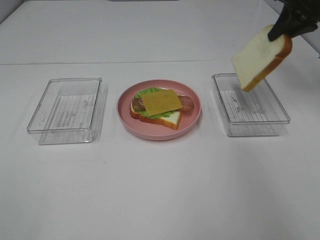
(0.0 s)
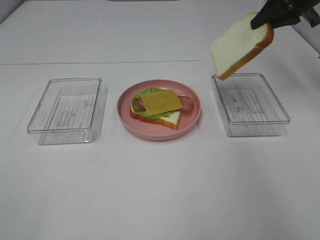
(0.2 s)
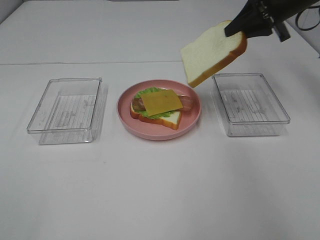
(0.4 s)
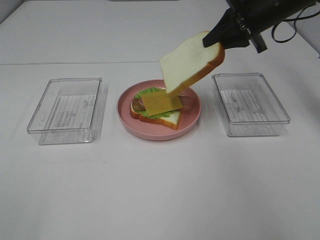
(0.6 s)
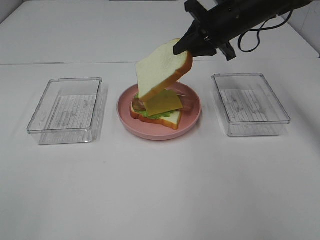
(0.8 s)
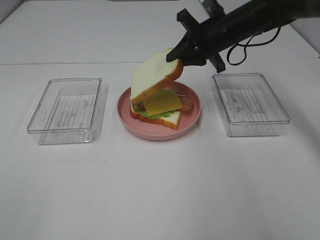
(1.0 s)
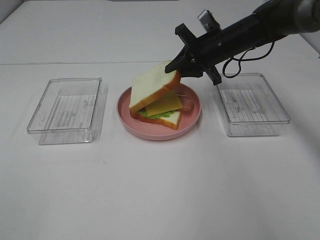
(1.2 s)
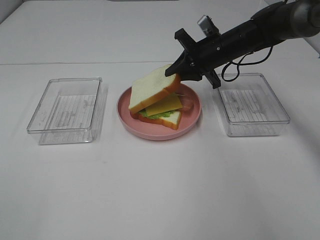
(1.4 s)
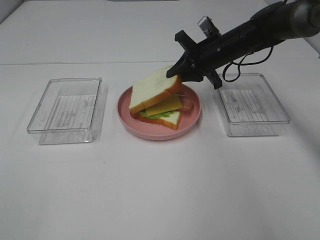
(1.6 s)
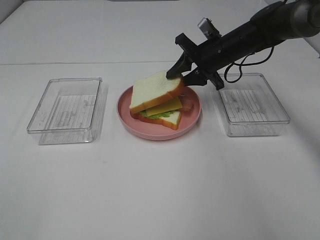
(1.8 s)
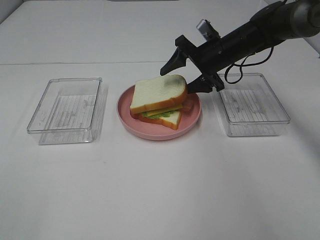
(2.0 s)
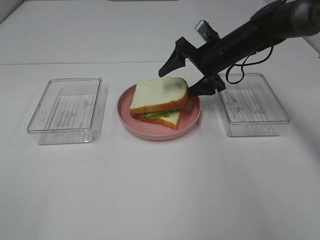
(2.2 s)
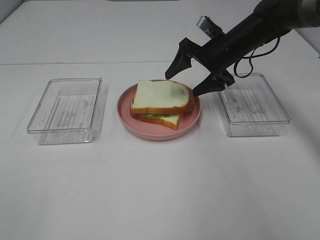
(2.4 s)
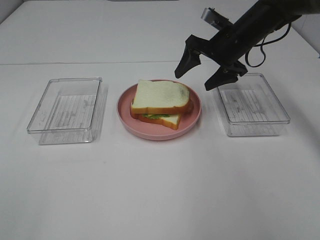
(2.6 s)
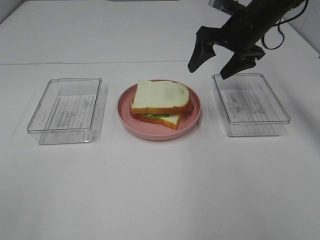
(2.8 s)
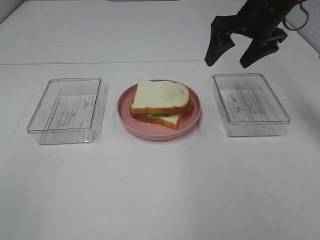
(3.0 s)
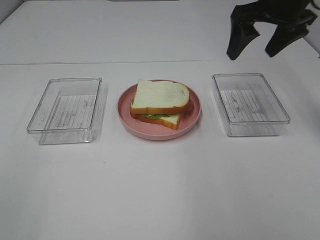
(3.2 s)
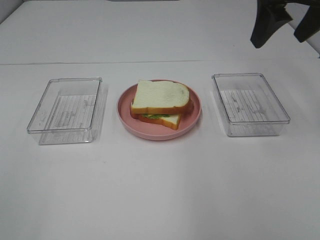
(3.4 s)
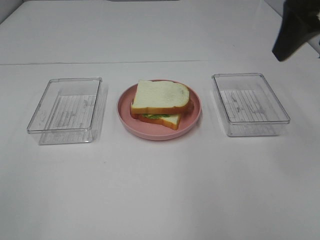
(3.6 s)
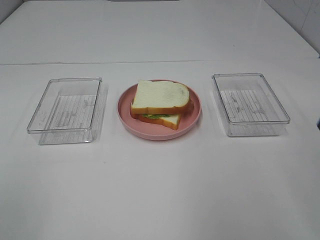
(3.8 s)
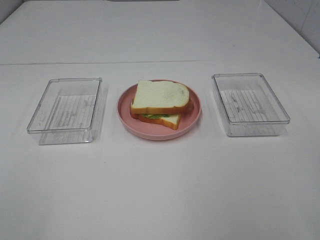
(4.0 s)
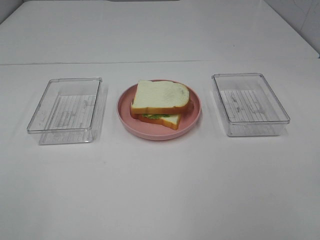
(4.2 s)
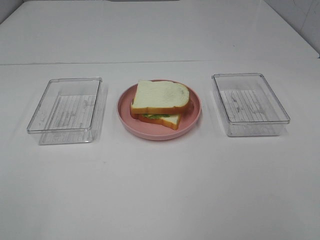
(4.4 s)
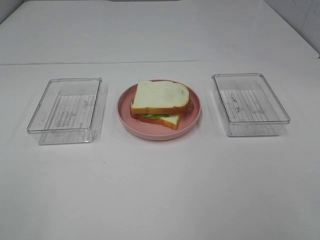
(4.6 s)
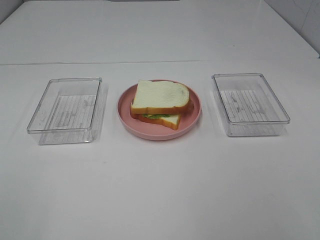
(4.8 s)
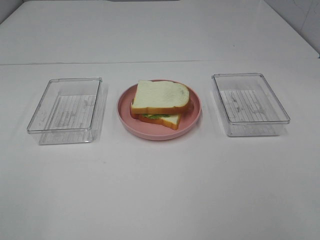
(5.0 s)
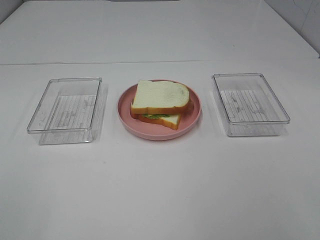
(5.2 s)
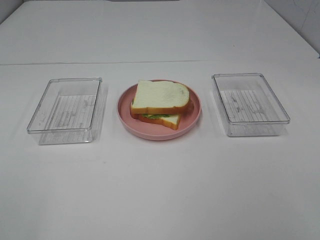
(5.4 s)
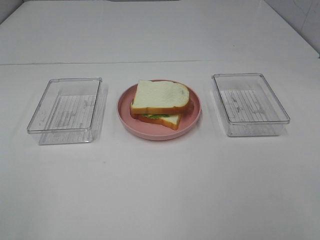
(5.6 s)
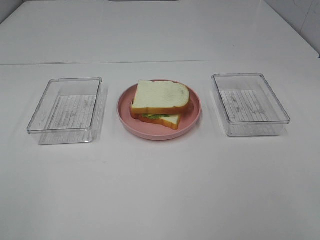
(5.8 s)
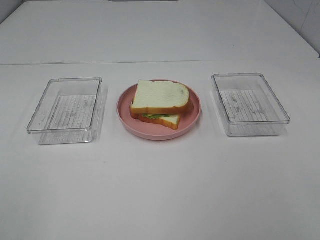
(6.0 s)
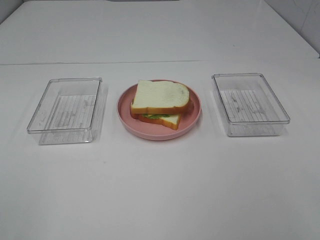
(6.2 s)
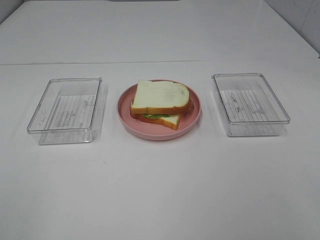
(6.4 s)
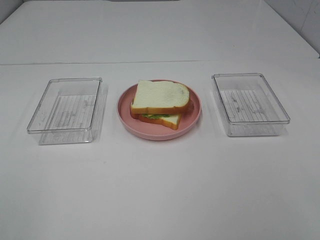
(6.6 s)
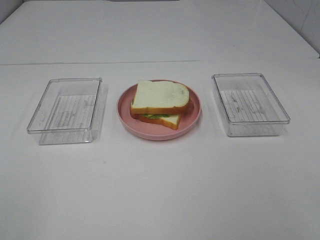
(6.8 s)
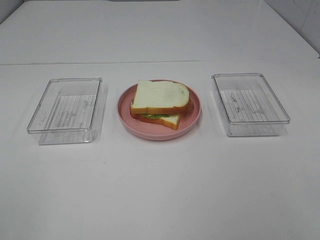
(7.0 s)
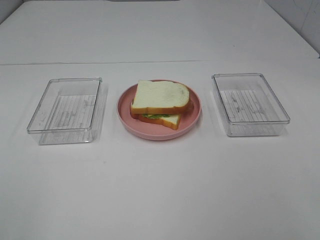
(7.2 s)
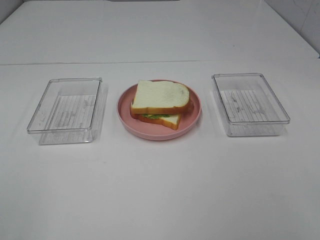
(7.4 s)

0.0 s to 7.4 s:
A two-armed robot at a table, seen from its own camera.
Task of the whole recording: Make sandwiches.
Step, 0.0 to 2.4 s: Right hand:place the bread slice on the cheese slice.
0.0 to 1.4 s: The right gripper travels to the left and downward by approximately 20 cm.
1.4 to 3.0 s: The right gripper travels upward and backward by about 15 cm, and opens its fingers.
3.0 to 4.4 s: The right gripper is displaced backward by some 40 cm.
6.0 to 7.4 s: The two grippers keep their place.

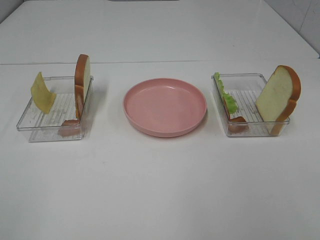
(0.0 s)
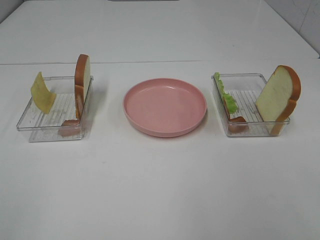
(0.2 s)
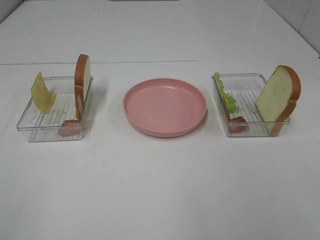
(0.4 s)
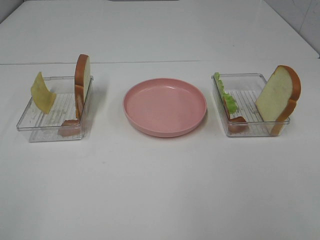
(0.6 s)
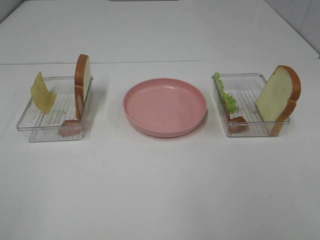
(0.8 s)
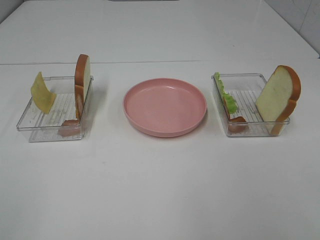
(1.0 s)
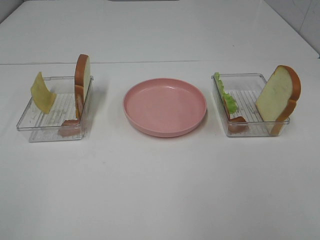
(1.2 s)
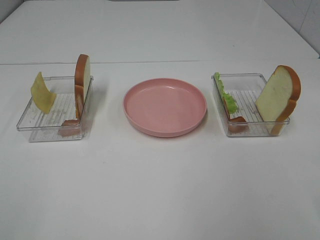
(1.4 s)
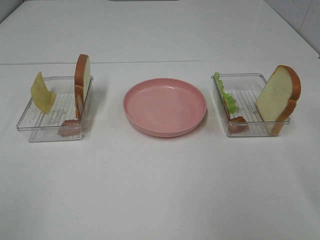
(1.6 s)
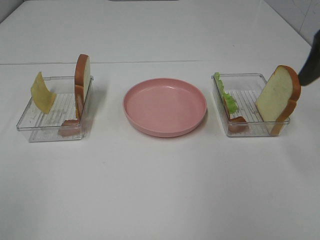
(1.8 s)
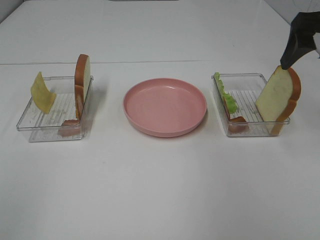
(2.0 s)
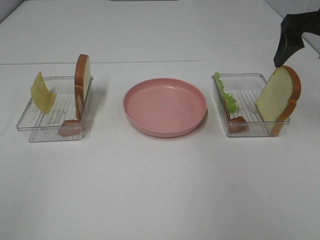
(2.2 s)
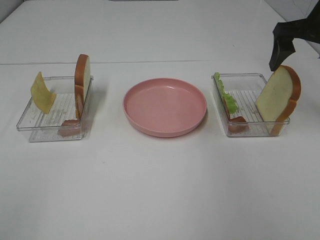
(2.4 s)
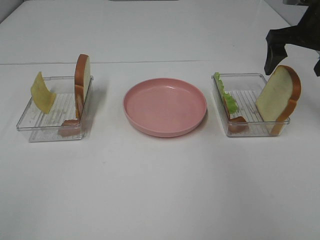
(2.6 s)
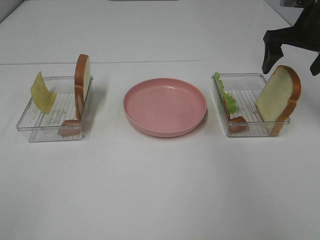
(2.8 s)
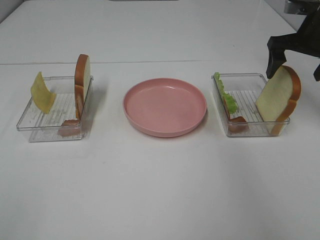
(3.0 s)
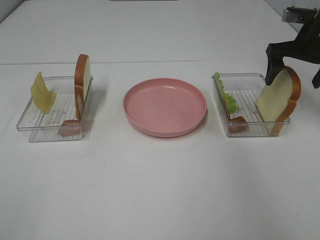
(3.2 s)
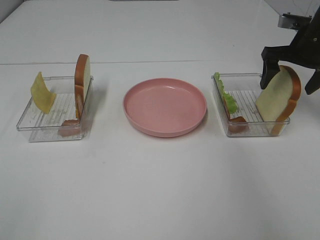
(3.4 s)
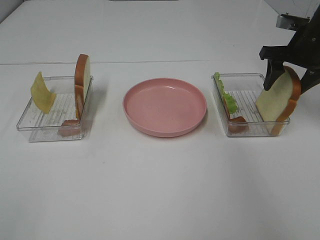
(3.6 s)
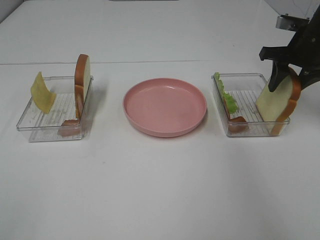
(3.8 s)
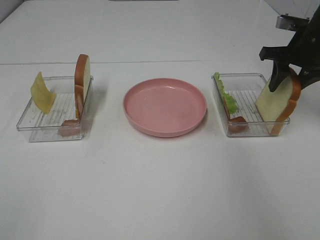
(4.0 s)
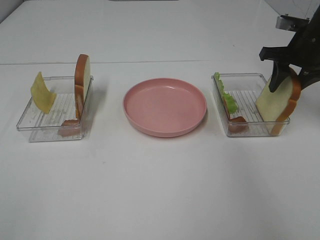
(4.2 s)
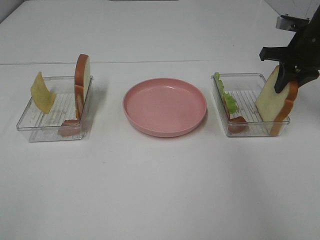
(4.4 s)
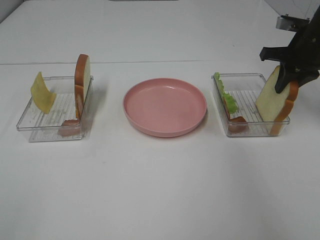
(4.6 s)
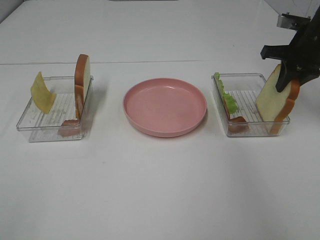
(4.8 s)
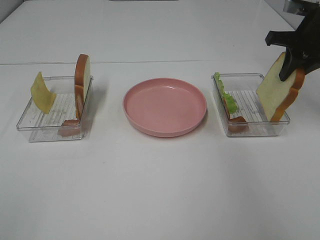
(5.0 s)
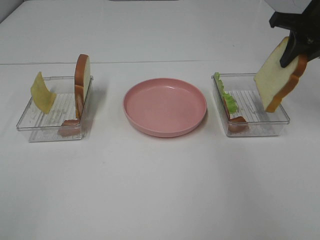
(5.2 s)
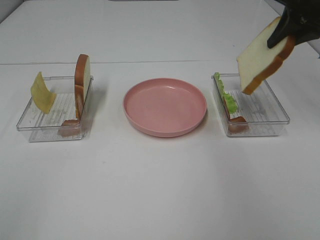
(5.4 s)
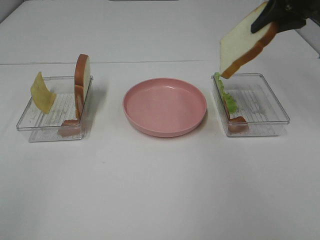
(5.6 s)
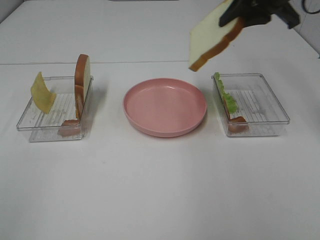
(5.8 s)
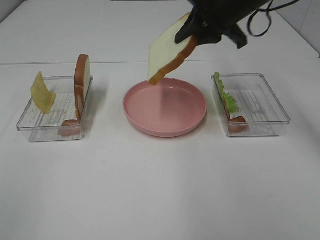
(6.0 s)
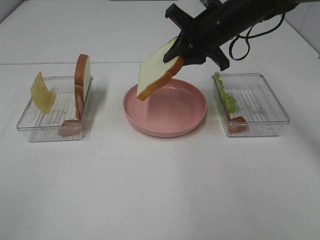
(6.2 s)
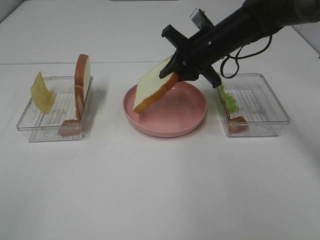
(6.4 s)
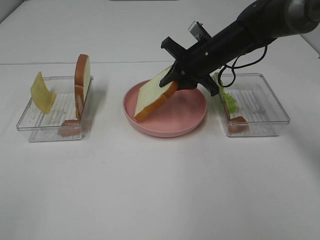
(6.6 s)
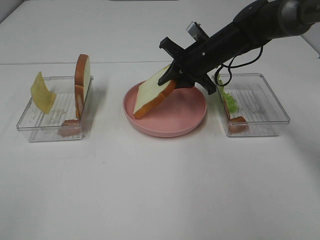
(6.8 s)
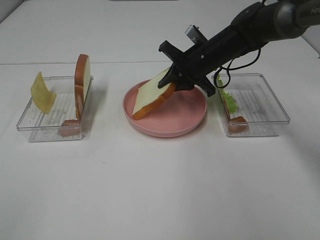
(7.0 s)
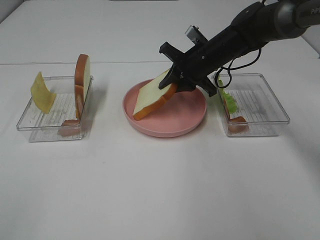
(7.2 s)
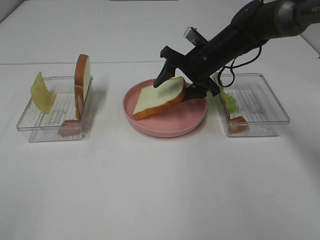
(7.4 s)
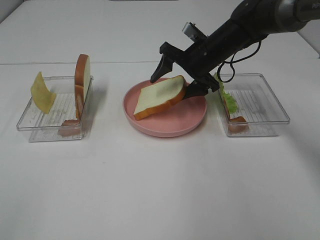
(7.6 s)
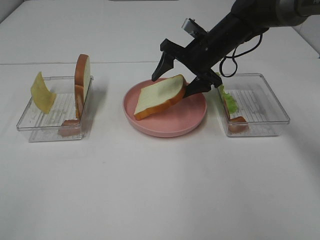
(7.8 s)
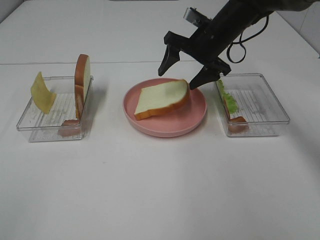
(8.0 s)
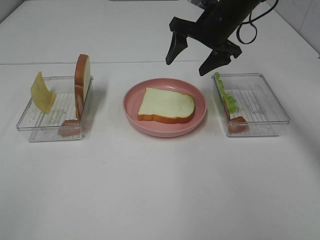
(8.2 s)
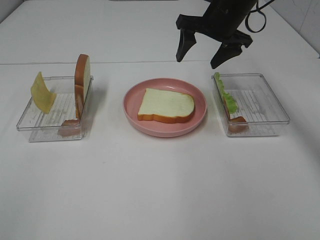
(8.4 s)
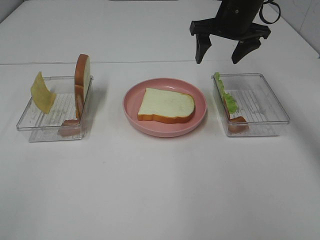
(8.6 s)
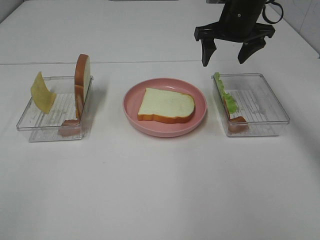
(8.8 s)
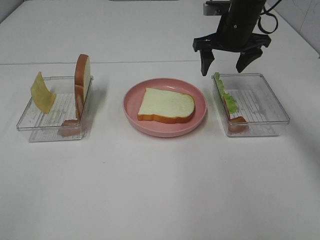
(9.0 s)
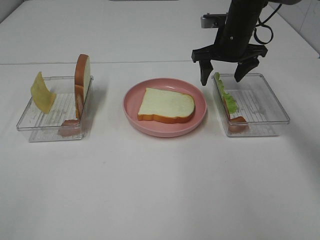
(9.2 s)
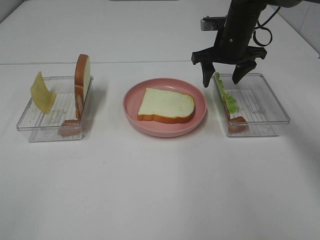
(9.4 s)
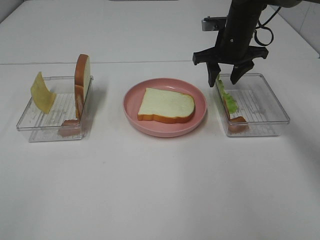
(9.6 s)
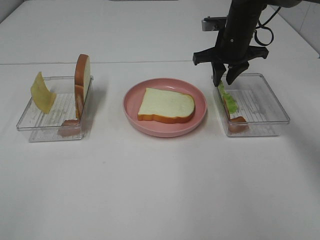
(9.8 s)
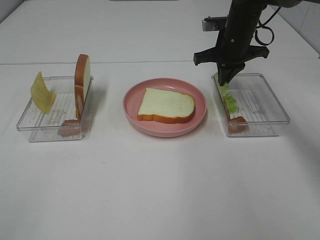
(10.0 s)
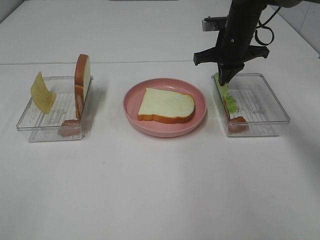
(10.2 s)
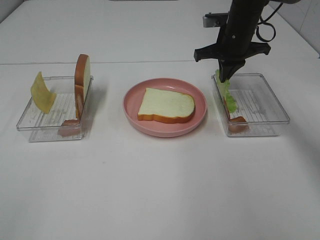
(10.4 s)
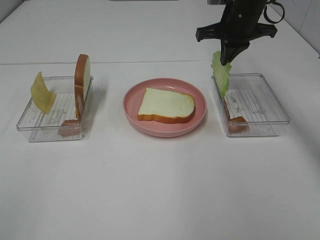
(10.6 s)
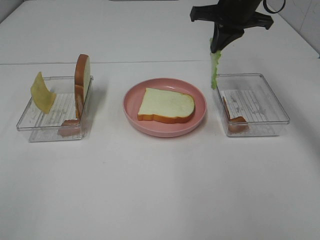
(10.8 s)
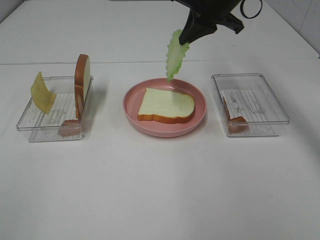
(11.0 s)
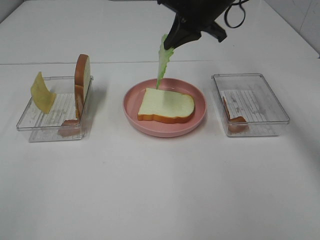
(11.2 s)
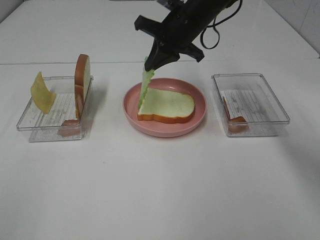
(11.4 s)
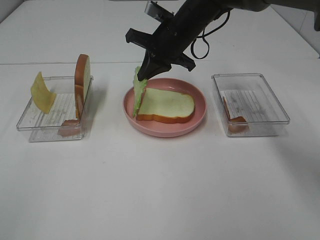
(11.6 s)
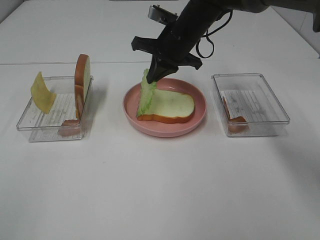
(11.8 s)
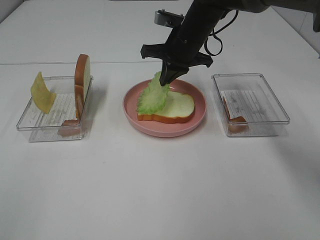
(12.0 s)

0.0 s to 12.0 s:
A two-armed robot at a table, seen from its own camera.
Task of the whole recording: Make sandwiches.
Step, 0.0 to 4.6 s: Right hand:grab the bread slice.
Step, 4.8 to 8.2 s: Right hand:place the bread slice on the plate.
Step, 8.4 to 10.4 s: Right hand:grab the lettuce slice.
1.6 to 3.0 s: The right gripper travels forward by some 25 cm.
3.0 to 4.4 s: The right gripper closes.
4.4 to 6.0 s: The right gripper goes roughly 15 cm to the left.
6.0 to 7.6 s: The right gripper shifts approximately 10 cm downward, and opens.
7.6 to 9.0 s: The right gripper heads upward, covering roughly 5 cm.
9.0 to 10.4 s: The right gripper closes.
10.4 to 12.0 s: The right gripper shifts some 10 cm to the left.

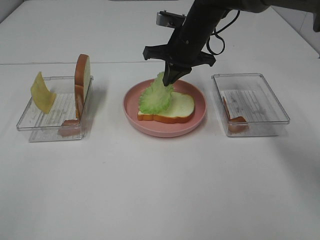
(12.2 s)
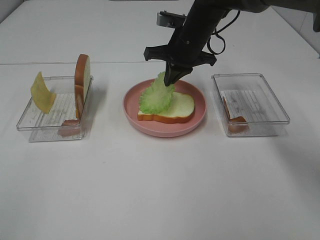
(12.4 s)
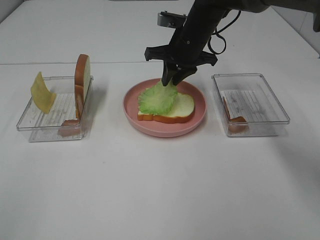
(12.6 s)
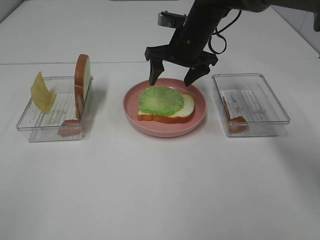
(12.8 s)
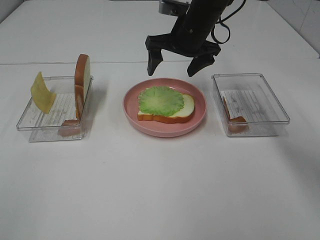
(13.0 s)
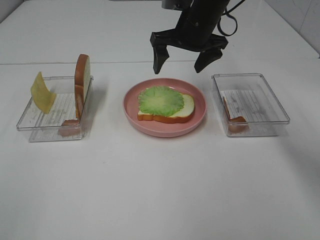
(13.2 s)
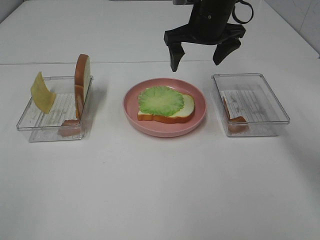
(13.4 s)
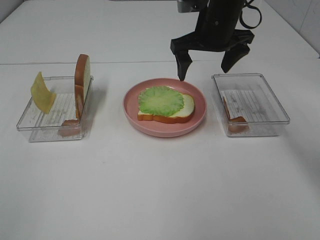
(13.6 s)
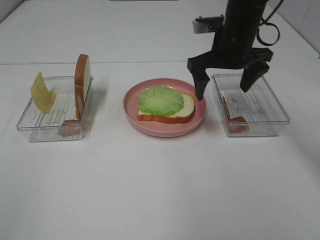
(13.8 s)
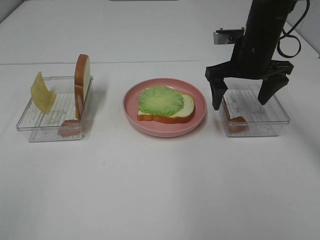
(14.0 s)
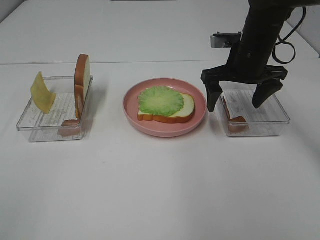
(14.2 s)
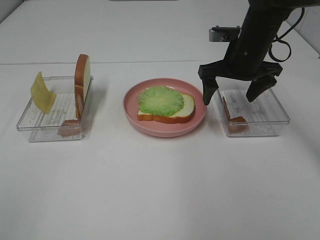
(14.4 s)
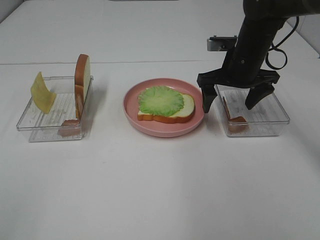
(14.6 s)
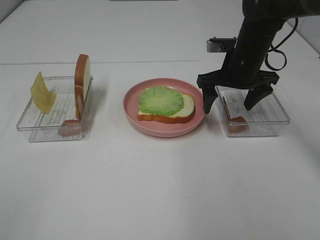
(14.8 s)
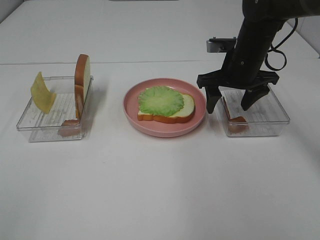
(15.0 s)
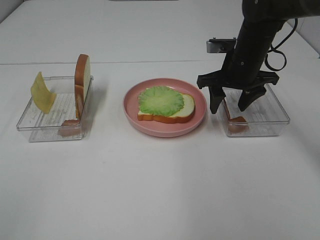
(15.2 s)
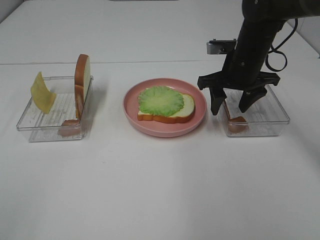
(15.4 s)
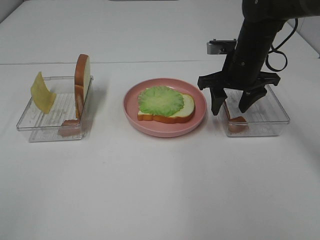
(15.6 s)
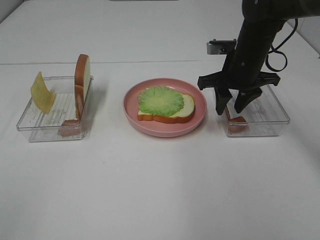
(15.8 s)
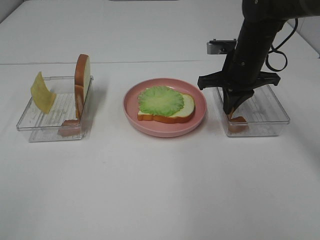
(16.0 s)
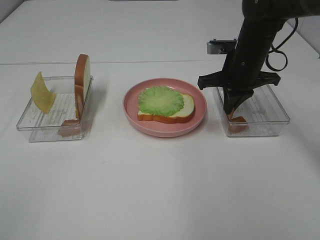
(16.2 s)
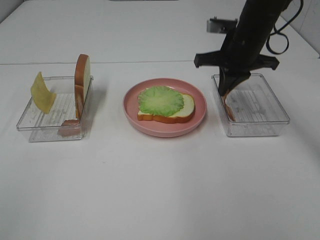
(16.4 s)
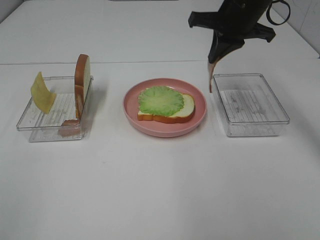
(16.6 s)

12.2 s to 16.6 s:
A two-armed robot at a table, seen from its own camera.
Task of the whole recording: Make sandwiches.
Step, 13.0 to 16.4 s: Right hand:grab the bacon.
12.2 to 13.6 s: The right gripper shifts by about 5 cm, and opens.
13.6 to 15.2 s: The right gripper is displaced downward and to the right by some 10 cm.
15.2 to 16.6 s: The right gripper travels upward by some 10 cm, and closes up.
